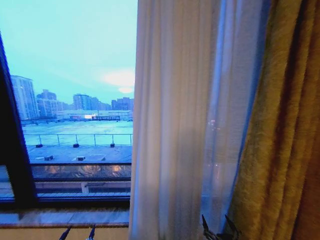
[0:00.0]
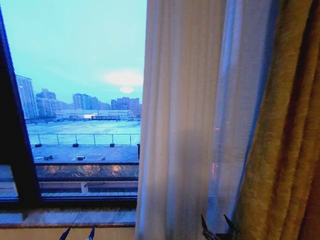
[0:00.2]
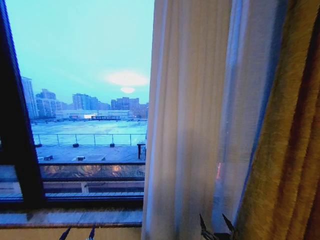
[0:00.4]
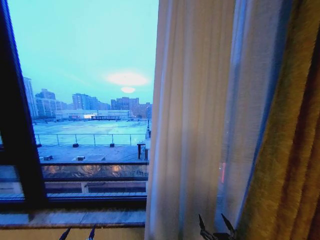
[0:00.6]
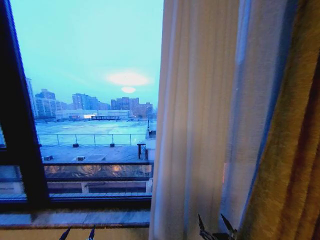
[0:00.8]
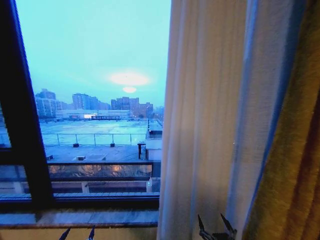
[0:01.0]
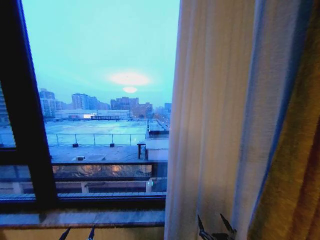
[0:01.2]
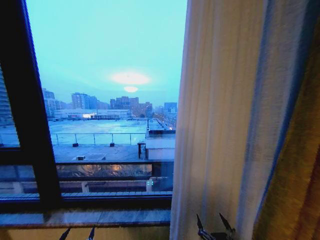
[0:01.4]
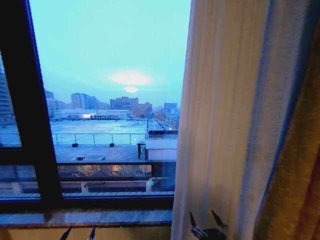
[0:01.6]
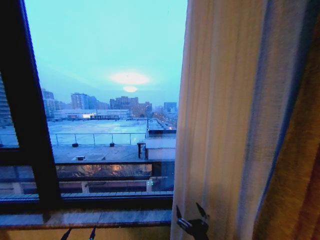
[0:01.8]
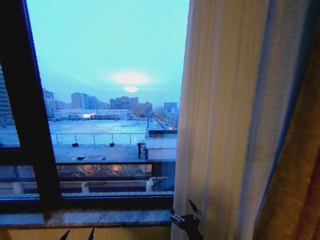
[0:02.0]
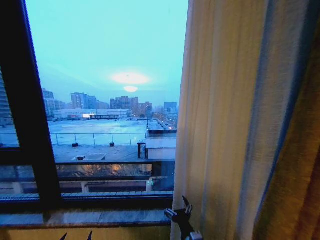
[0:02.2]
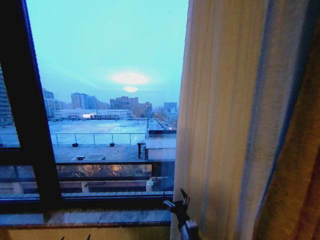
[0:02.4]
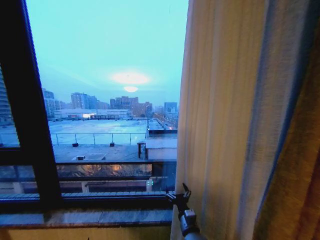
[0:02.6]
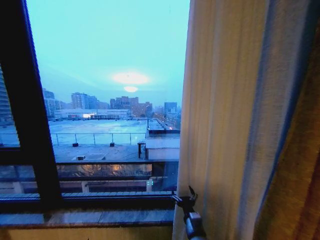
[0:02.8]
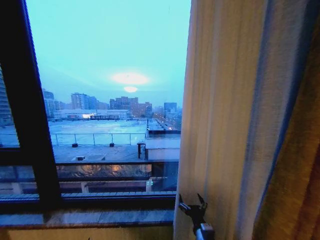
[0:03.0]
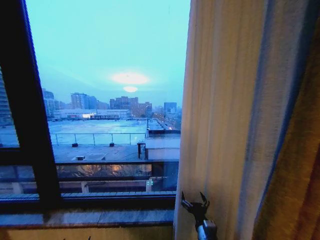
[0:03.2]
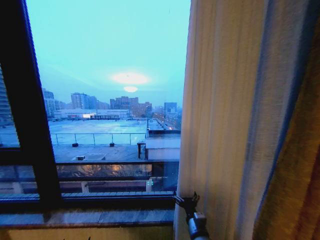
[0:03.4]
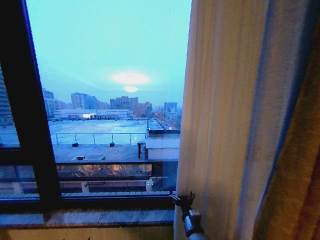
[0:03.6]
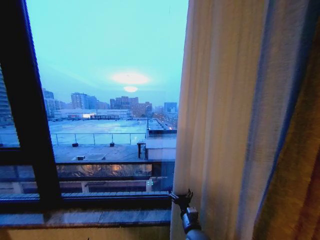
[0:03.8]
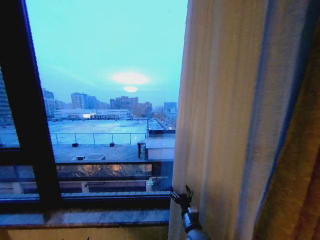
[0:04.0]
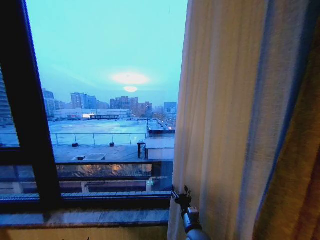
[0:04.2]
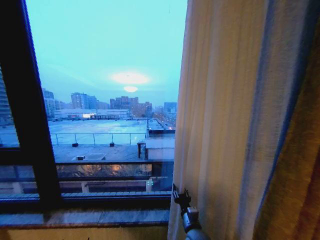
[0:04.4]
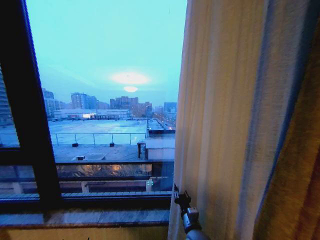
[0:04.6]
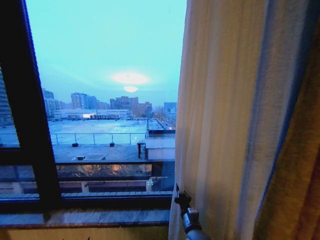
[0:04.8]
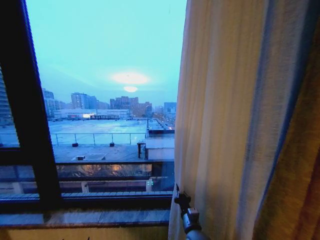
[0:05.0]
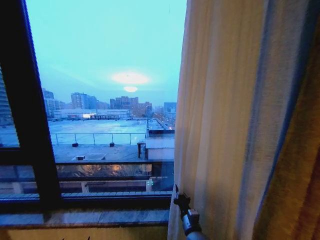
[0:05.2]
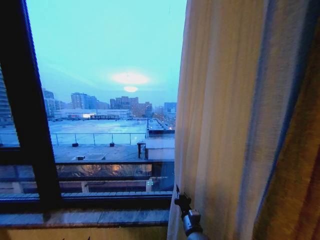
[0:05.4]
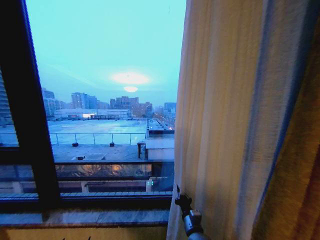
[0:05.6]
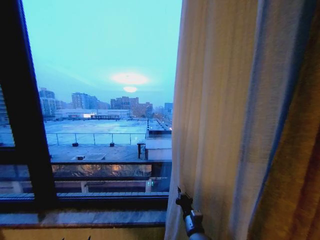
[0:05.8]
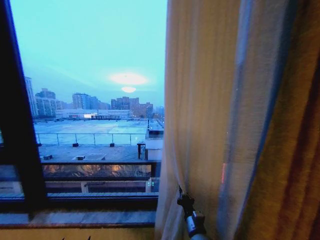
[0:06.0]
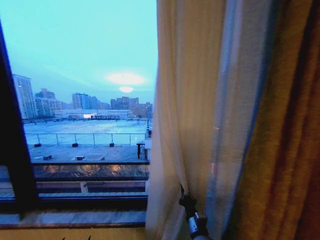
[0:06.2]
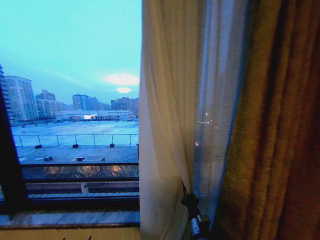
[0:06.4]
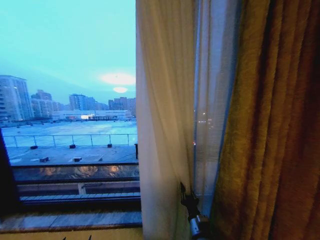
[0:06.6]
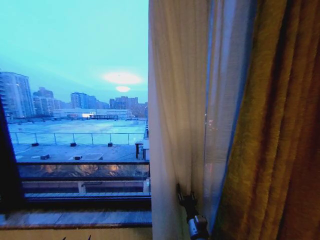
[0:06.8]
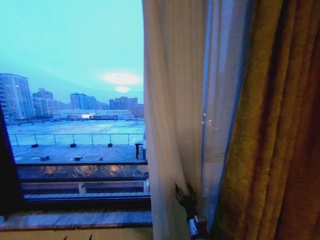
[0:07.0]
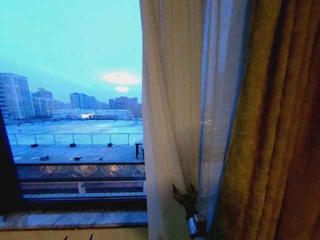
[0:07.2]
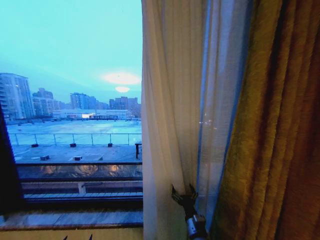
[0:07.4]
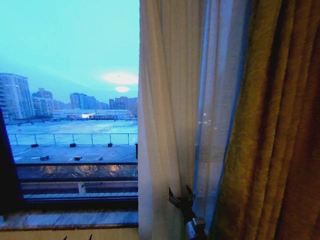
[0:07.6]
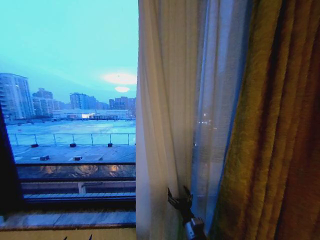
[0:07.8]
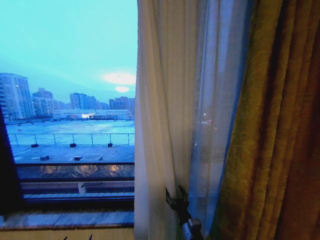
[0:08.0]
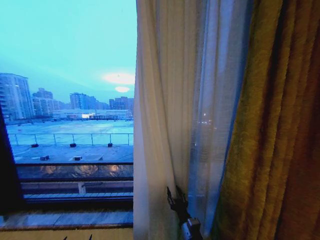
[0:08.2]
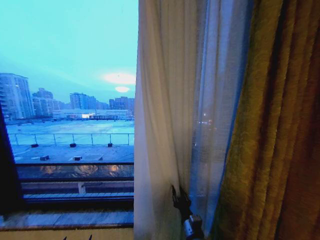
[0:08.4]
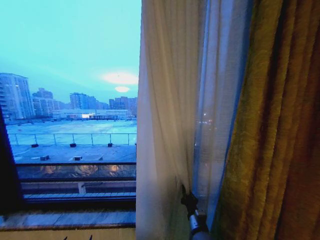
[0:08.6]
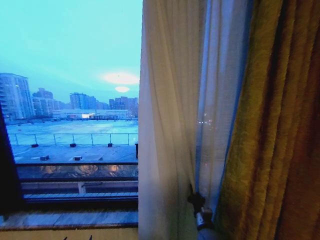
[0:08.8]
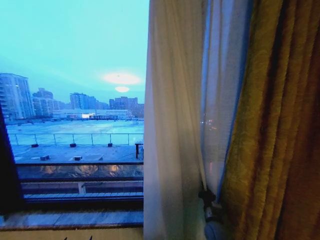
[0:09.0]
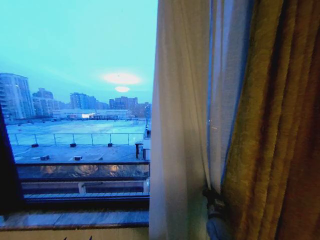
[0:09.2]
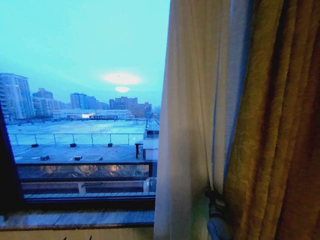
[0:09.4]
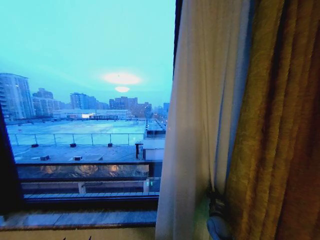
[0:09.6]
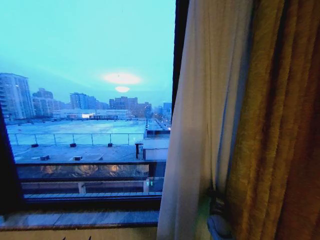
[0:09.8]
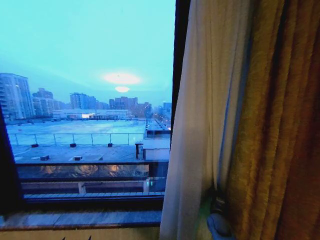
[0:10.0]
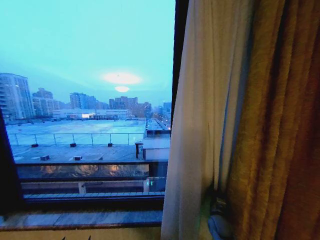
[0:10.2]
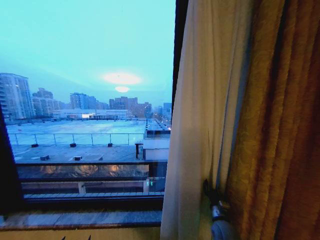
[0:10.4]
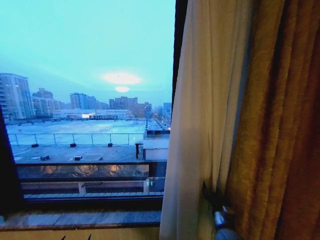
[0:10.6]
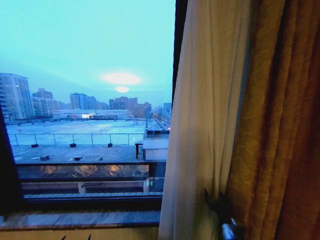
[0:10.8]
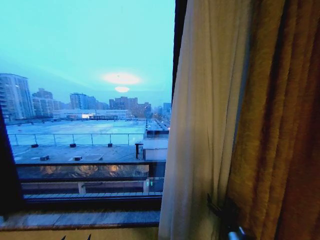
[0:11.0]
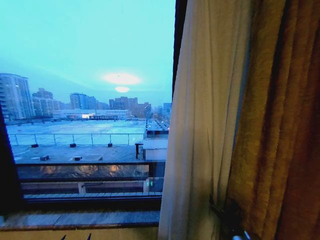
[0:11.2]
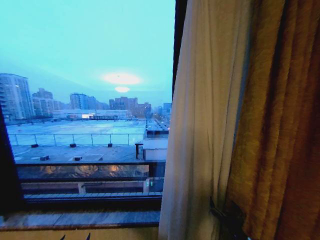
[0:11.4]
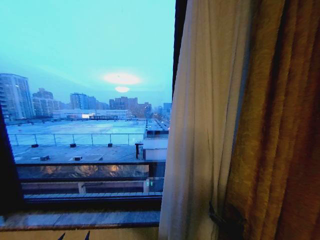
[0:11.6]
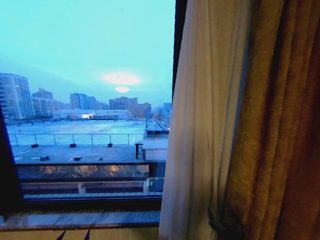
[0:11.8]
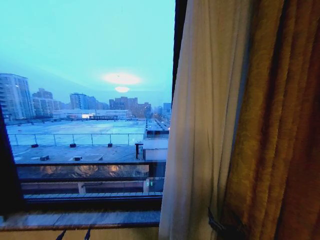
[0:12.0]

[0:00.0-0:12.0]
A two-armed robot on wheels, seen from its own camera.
Task of the whole recording: Open the curtains by pulling them apart, changing their state from closed to fully open.
0:01.6 to 0:03.0: The right gripper travels forward by roughly 10 cm.
0:03.0 to 0:04.4: The right gripper shifts some 5 cm forward, and closes.
0:04.4 to 0:06.0: The right gripper closes up.
0:06.0 to 0:07.6: The right gripper opens.
0:07.6 to 0:09.0: The right gripper goes roughly 10 cm to the right and forward, and closes up.
0:10.4 to 0:12.0: The right gripper goes approximately 20 cm backward, and opens its fingers.

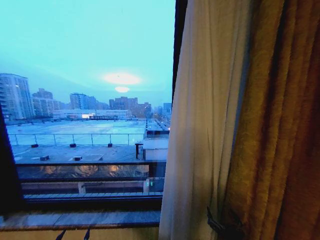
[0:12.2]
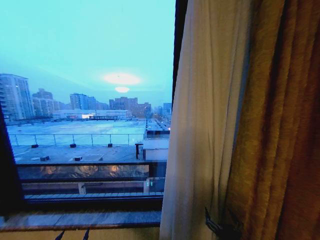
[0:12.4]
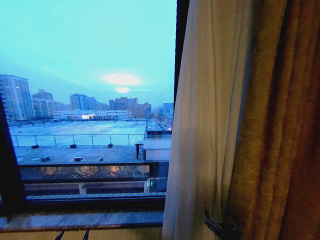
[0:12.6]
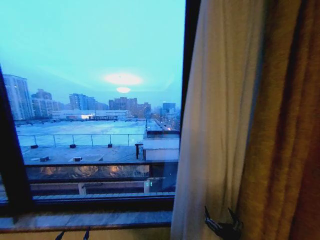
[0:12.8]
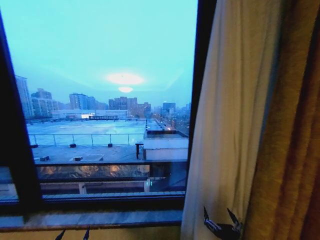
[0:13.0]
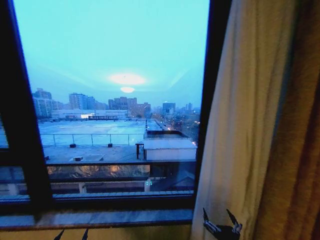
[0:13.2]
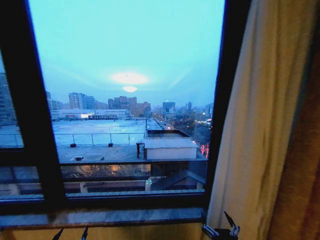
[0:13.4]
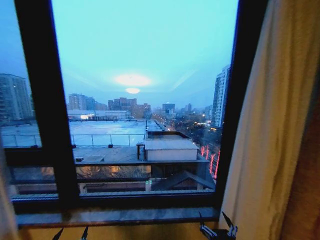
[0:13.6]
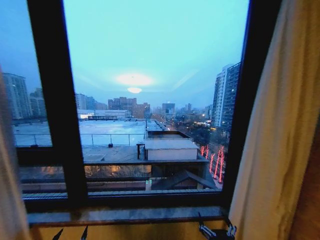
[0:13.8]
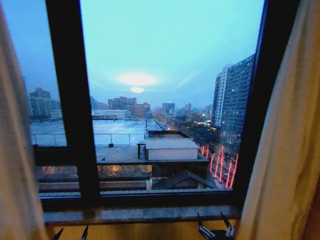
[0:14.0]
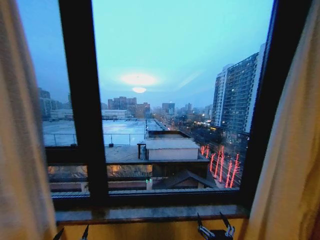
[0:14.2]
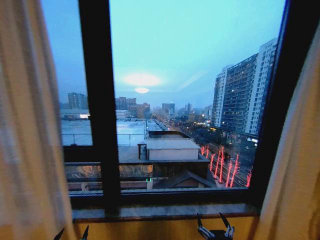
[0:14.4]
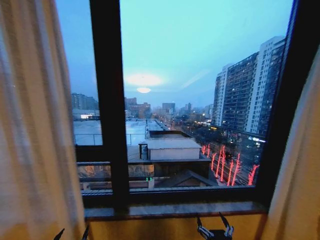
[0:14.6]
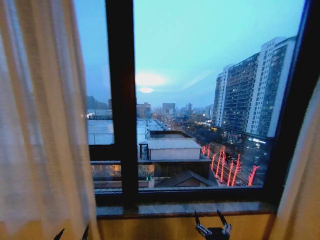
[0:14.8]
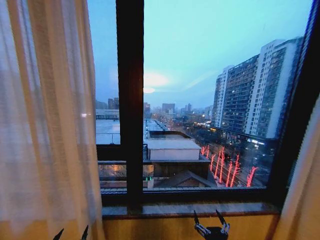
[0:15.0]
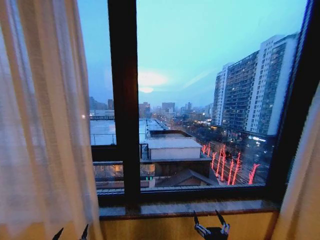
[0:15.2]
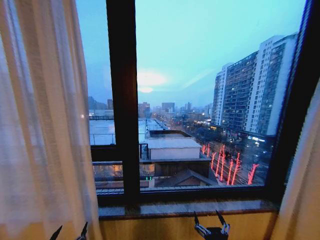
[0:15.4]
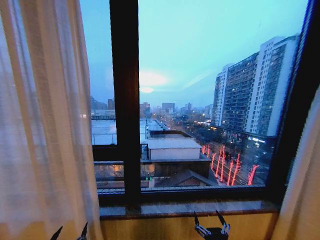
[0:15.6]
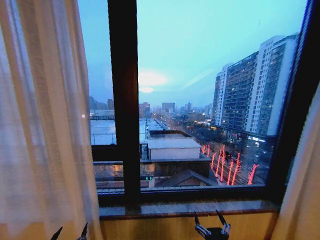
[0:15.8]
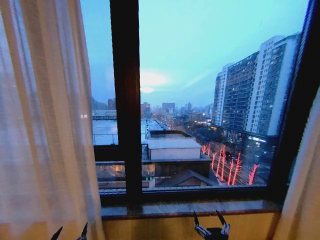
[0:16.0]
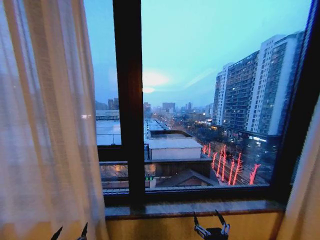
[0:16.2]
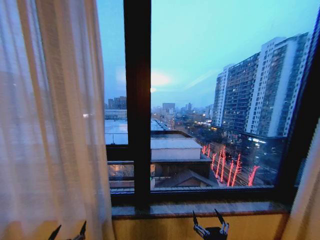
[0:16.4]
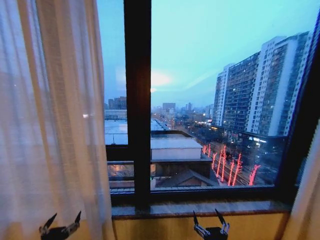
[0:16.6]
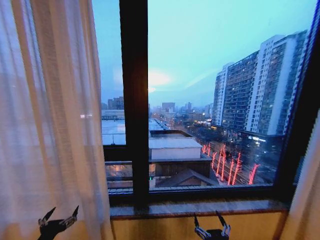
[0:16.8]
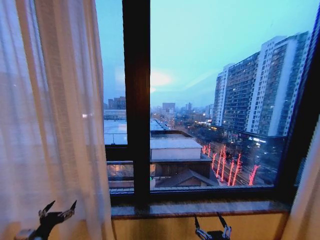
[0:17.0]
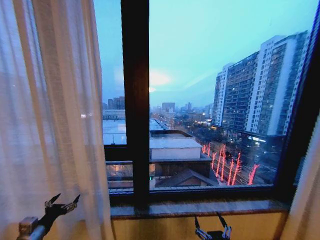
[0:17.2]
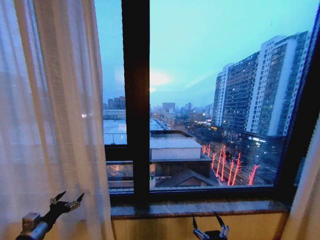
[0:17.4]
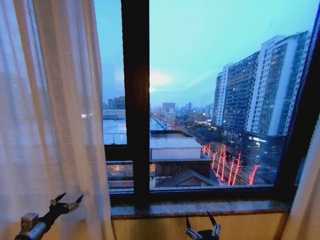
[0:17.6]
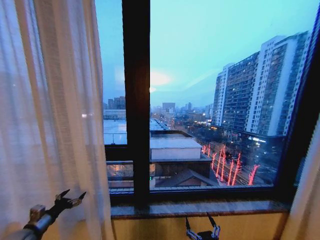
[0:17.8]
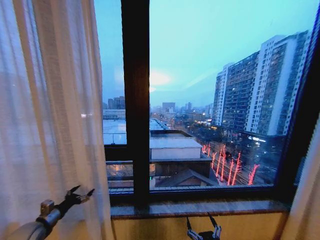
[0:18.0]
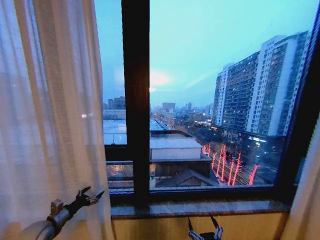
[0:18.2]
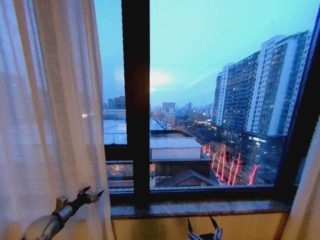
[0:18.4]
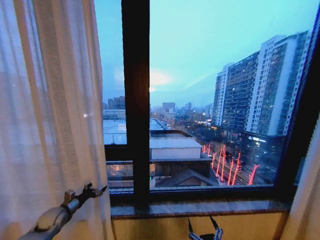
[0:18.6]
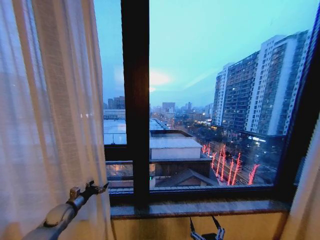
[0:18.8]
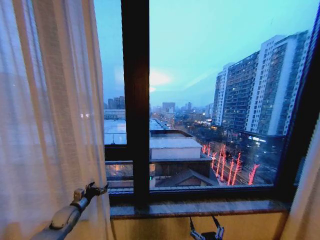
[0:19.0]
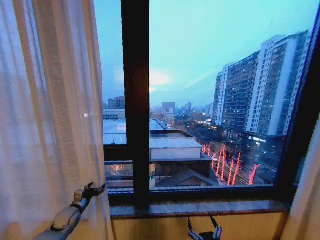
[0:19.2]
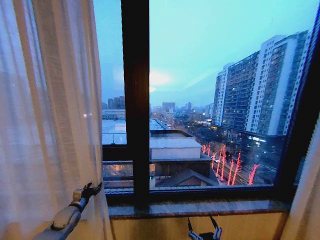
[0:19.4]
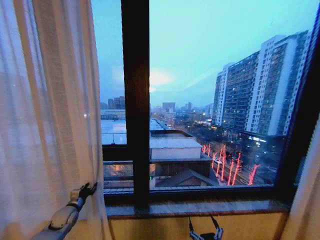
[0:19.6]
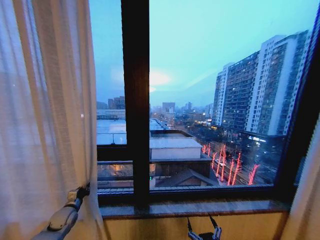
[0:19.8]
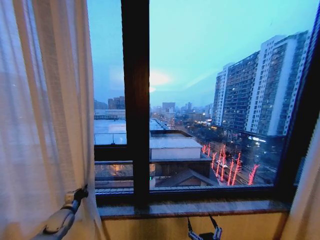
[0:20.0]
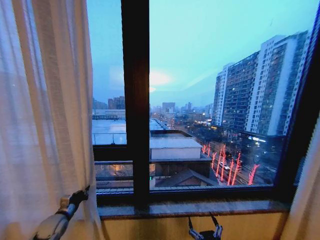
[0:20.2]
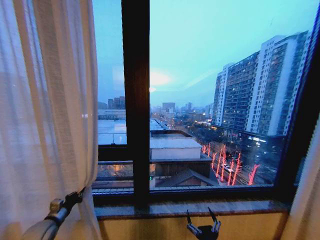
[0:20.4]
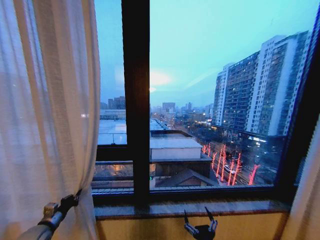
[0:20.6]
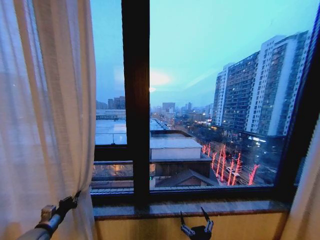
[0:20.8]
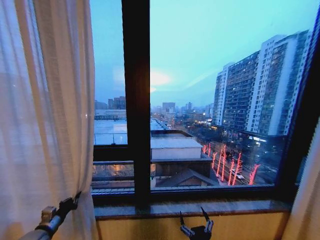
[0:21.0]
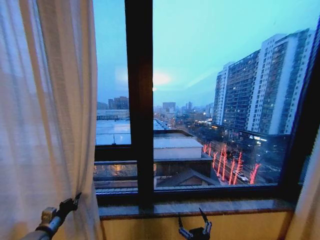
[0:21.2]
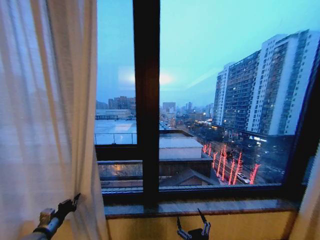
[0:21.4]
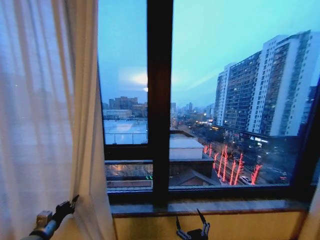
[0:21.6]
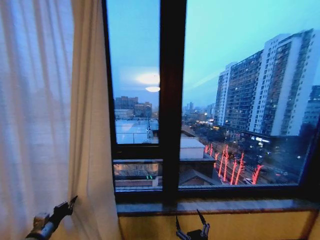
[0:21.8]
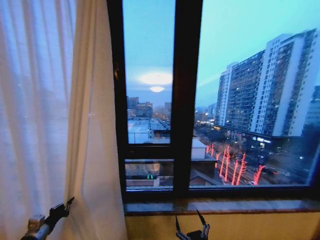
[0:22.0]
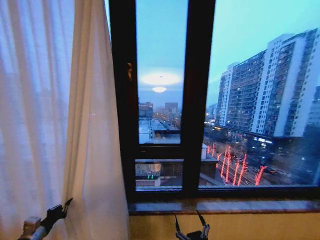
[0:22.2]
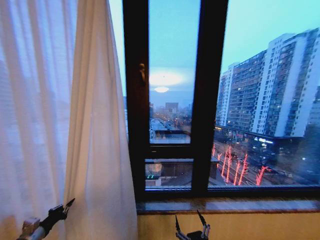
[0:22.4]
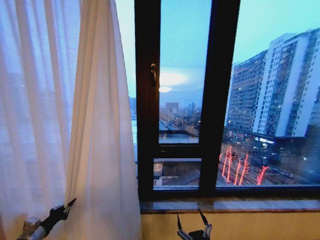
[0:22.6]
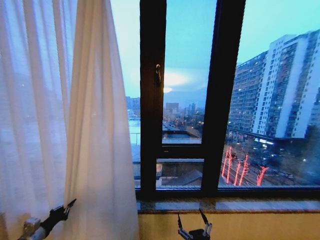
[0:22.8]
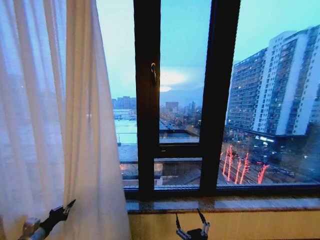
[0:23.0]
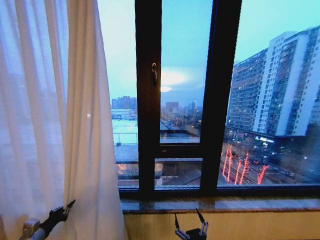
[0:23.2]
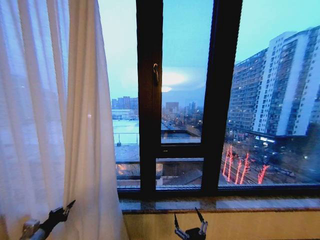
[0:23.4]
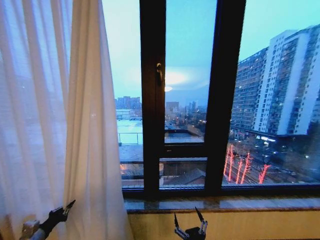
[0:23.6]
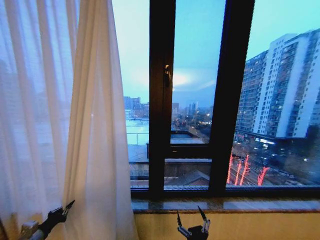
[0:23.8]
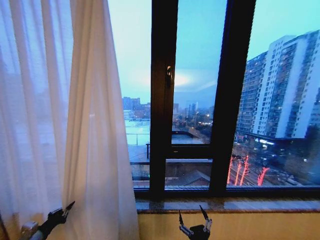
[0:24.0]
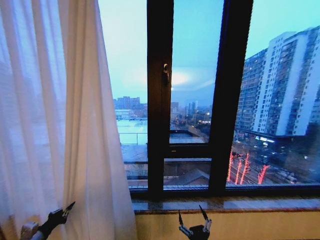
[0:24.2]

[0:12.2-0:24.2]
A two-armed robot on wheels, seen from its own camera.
Task of the whole recording: Open the curtains by pulling them apart, changing their state from closed to fully open.
0:15.2 to 0:16.6: The left gripper ends up some 5 cm from where it was.
0:16.6 to 0:18.2: The left gripper travels forward and to the left by roughly 20 cm.
0:18.2 to 0:19.8: The left gripper shifts approximately 10 cm forward, and closes up.
0:19.8 to 0:21.2: The left gripper travels backward by approximately 10 cm.
0:21.2 to 0:22.6: The left gripper changes place by about 5 cm.
